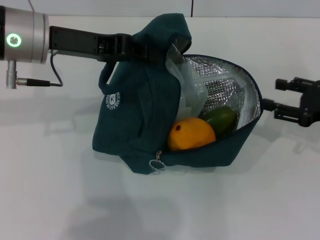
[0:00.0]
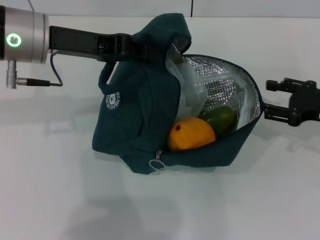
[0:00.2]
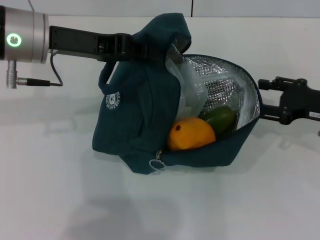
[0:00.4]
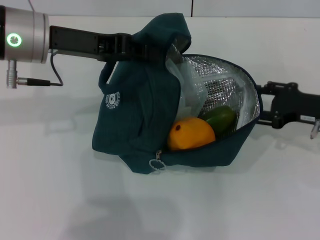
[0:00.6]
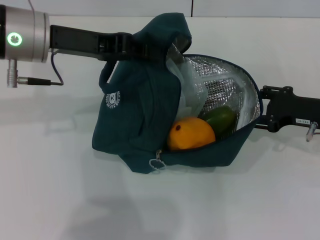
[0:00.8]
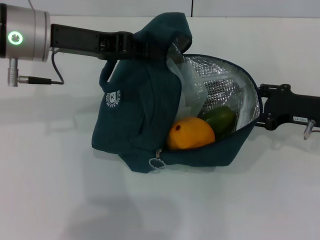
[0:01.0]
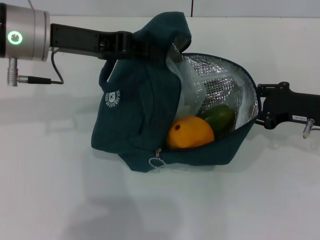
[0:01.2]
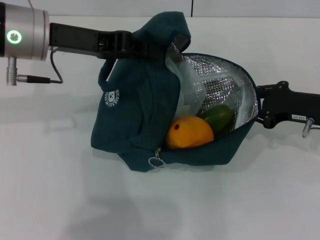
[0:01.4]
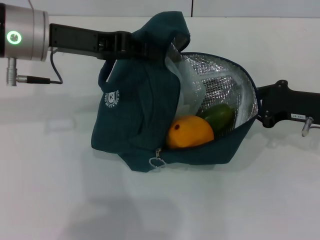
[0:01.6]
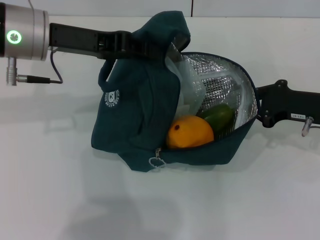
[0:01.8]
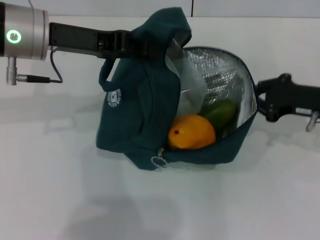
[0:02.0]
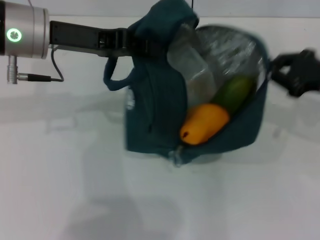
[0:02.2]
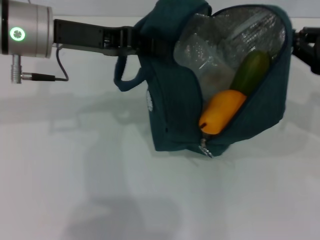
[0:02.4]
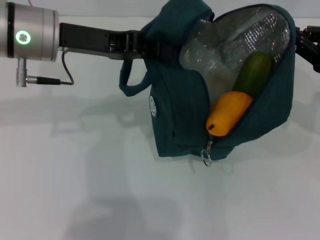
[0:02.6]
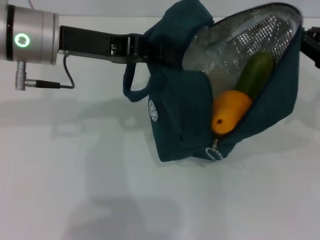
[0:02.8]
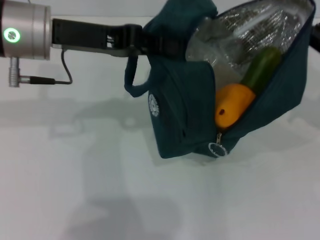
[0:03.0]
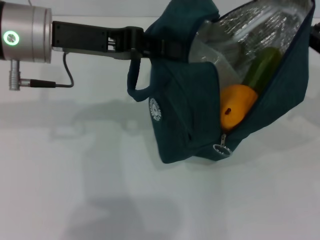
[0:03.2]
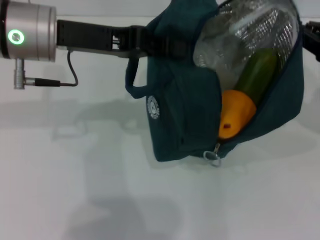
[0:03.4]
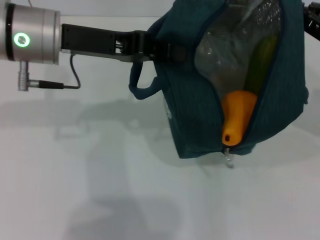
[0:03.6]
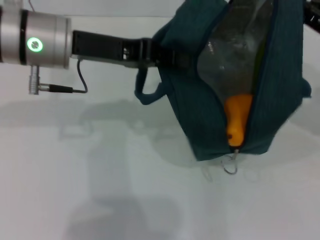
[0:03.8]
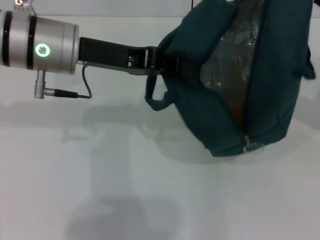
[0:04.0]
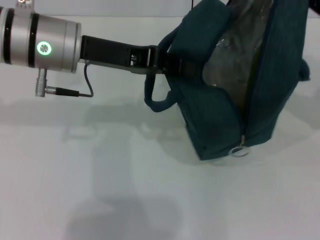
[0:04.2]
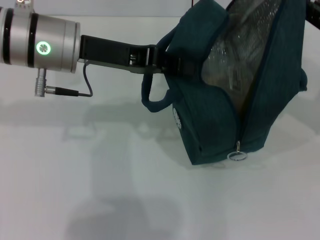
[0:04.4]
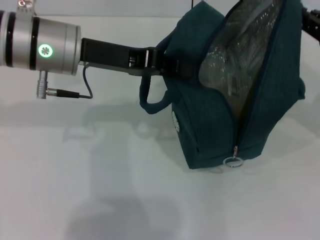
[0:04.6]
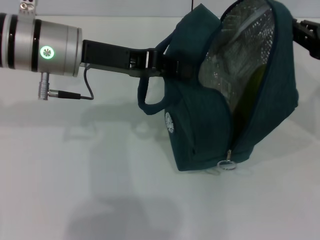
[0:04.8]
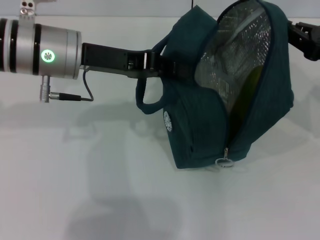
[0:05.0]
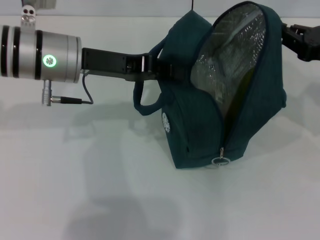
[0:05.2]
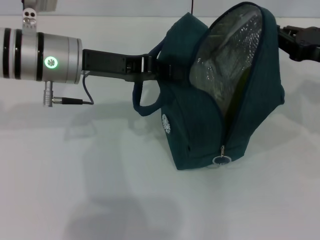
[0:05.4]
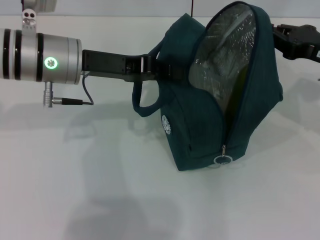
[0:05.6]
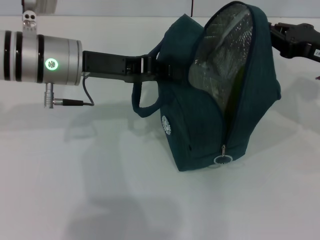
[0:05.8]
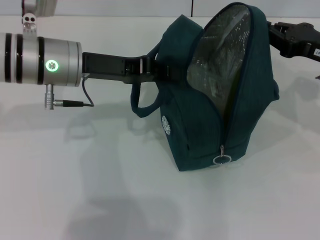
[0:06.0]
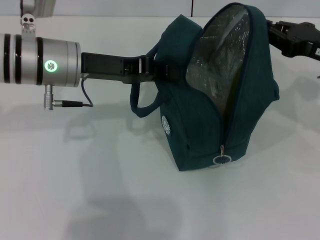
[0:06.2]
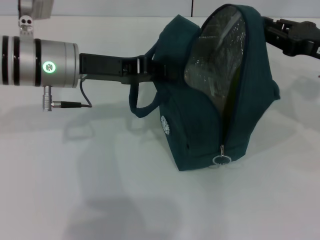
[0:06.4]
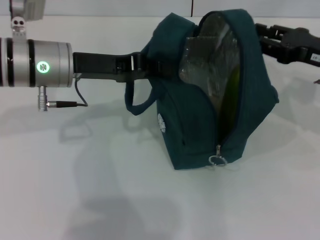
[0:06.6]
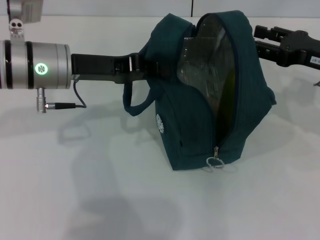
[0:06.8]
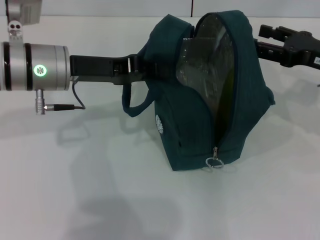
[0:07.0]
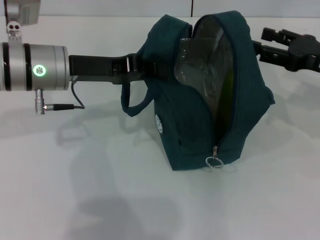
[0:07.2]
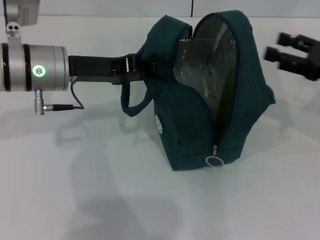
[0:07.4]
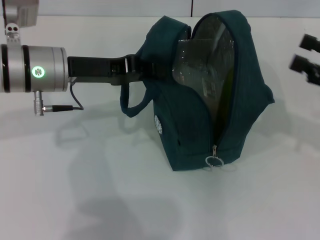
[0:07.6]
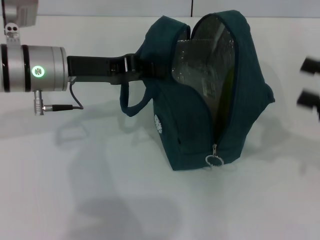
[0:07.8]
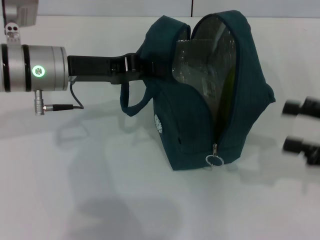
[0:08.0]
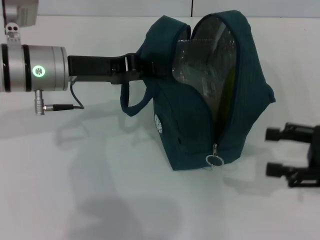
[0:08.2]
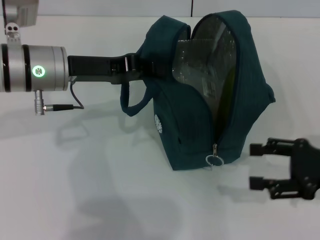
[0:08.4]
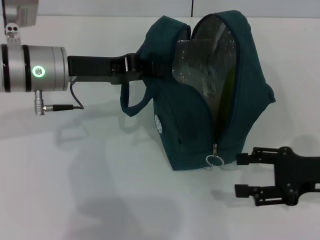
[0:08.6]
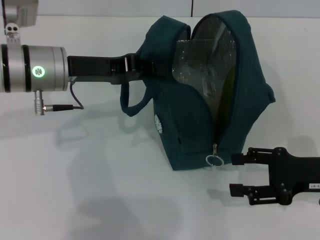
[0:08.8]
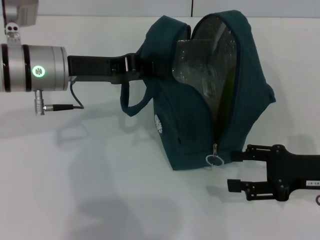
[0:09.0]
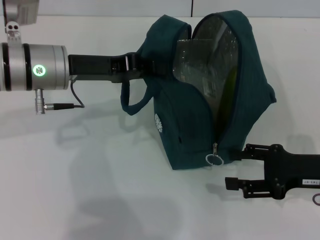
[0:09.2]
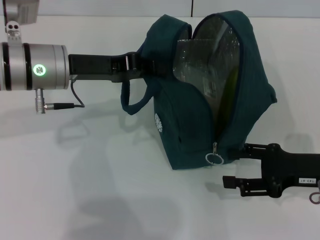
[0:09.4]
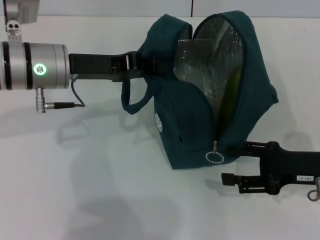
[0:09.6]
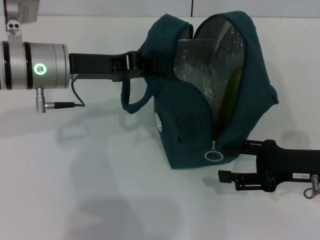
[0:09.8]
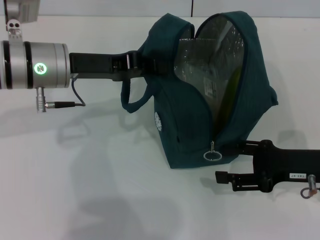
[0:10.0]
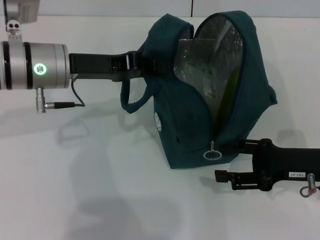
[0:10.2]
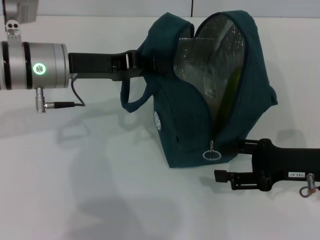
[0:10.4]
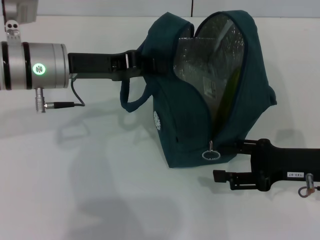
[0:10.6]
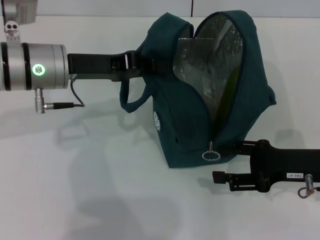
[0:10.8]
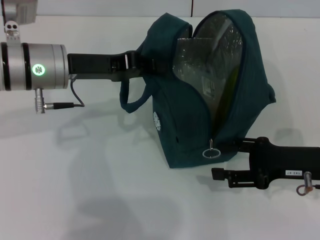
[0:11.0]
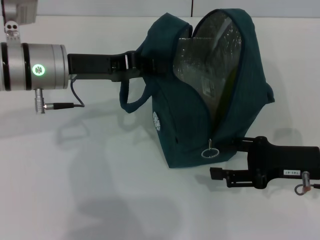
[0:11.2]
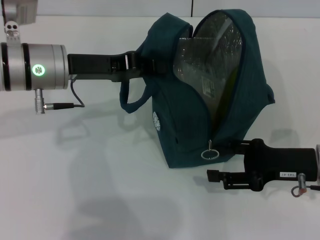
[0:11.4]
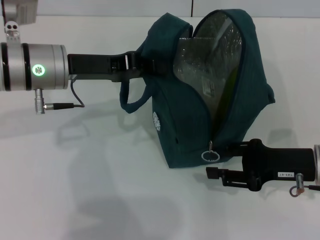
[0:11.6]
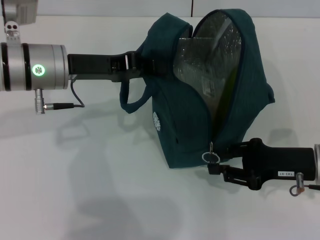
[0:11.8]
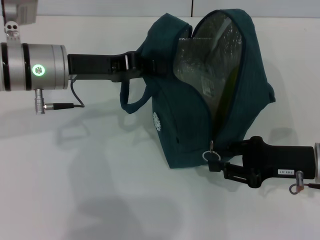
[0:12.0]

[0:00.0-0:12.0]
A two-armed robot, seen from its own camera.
Step, 0:00.0 to 0:06.8: Hold the lunch bag with your right hand.
0:00.0 to 0:01.6: The right gripper moves to the left, some 5 cm, and closes.
0:01.6 to 0:03.0: The right gripper shifts about 10 cm to the right and upward.
0:06.0 to 0:07.6: The right gripper heads backward and to the right, covering some 10 cm, and opens up.
0:07.6 to 0:09.0: The right gripper heads downward and to the left, covering about 10 cm.
0:09.0 to 0:10.4: The grippers make only small movements.
0:10.4 to 0:12.0: The right gripper closes its fingers.

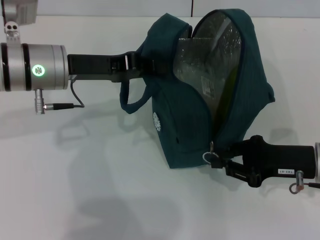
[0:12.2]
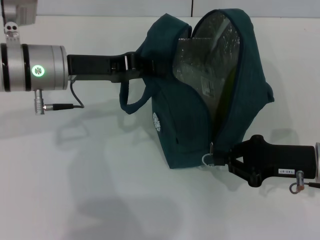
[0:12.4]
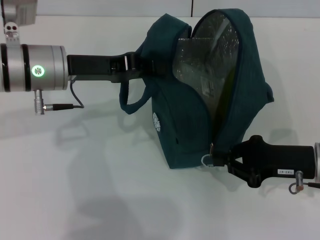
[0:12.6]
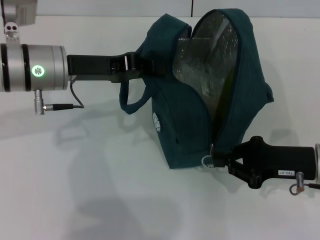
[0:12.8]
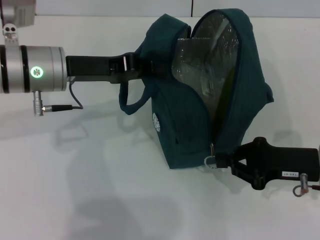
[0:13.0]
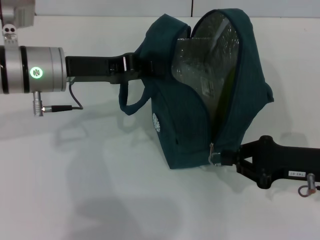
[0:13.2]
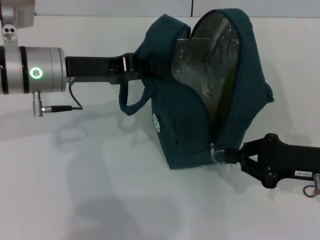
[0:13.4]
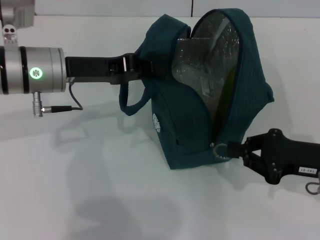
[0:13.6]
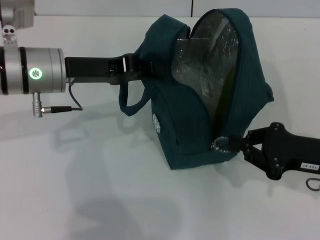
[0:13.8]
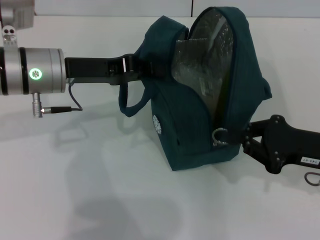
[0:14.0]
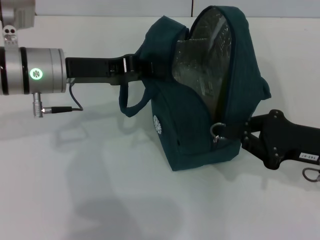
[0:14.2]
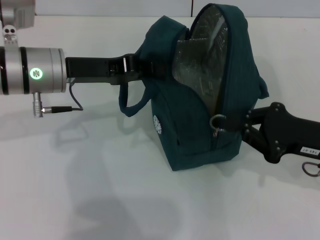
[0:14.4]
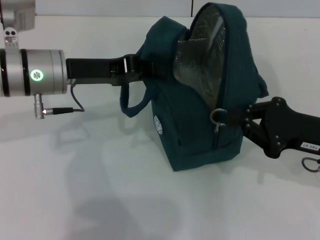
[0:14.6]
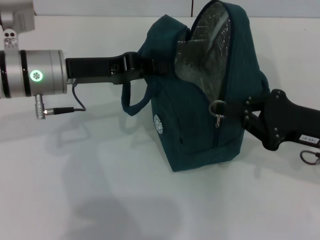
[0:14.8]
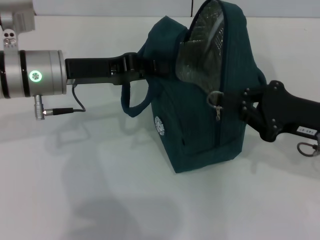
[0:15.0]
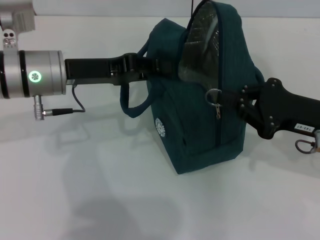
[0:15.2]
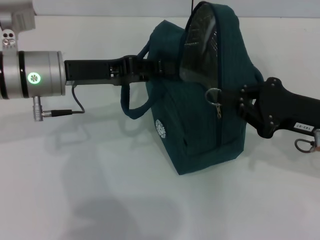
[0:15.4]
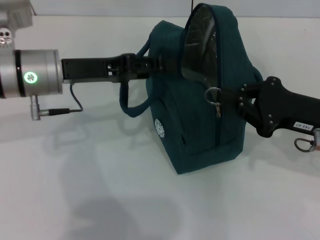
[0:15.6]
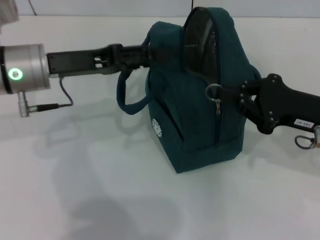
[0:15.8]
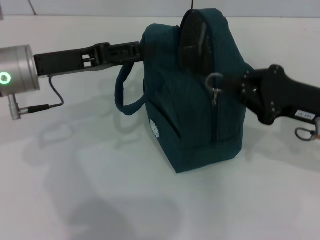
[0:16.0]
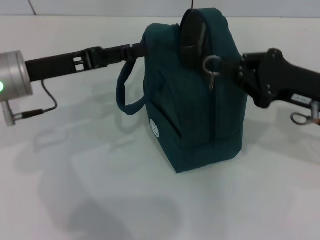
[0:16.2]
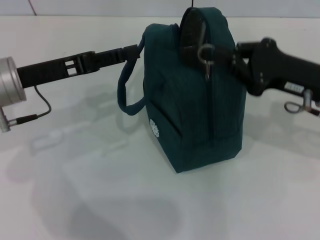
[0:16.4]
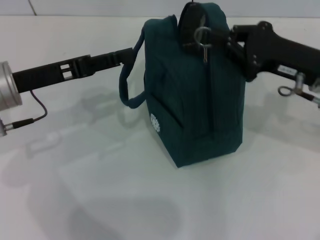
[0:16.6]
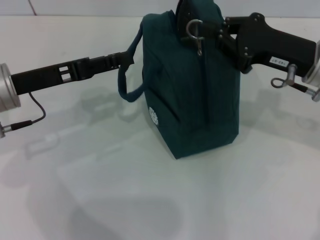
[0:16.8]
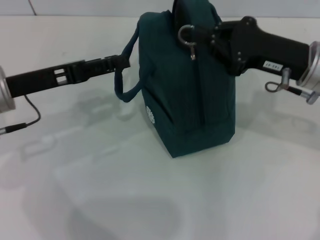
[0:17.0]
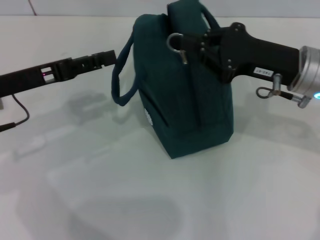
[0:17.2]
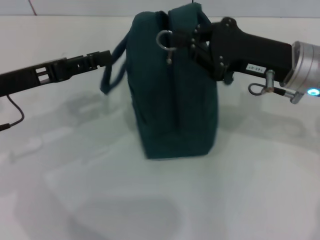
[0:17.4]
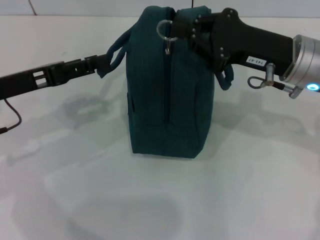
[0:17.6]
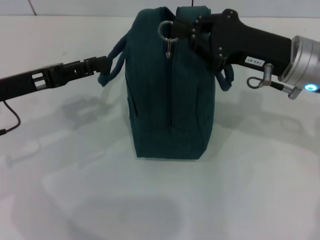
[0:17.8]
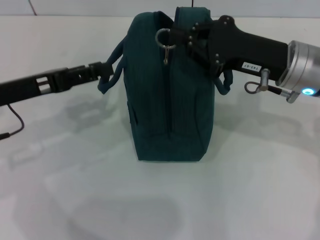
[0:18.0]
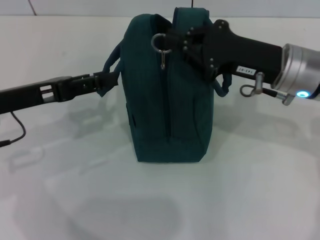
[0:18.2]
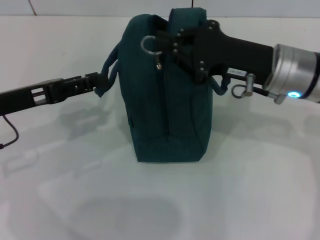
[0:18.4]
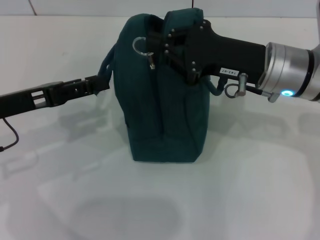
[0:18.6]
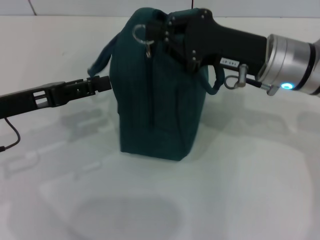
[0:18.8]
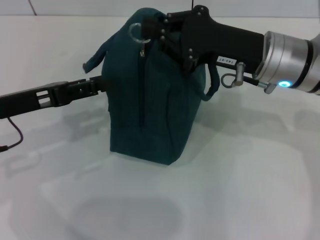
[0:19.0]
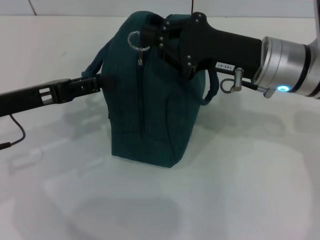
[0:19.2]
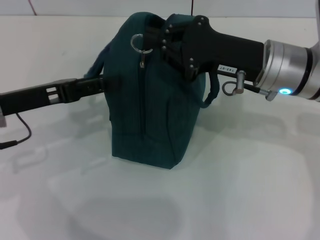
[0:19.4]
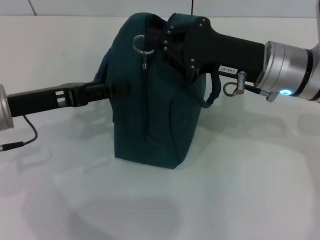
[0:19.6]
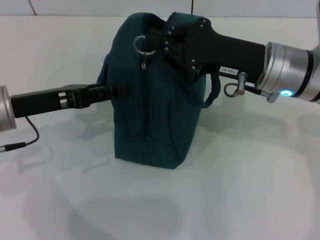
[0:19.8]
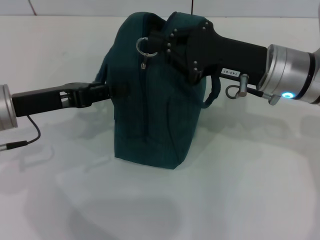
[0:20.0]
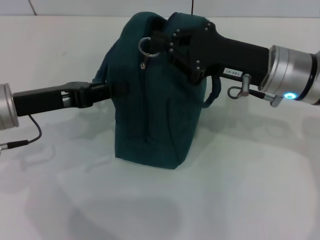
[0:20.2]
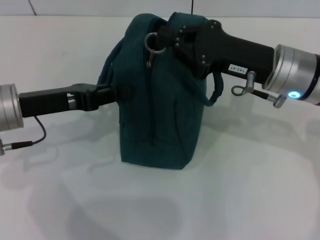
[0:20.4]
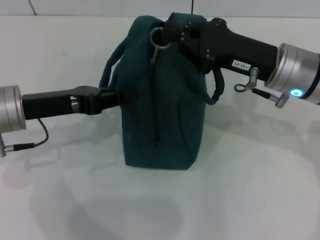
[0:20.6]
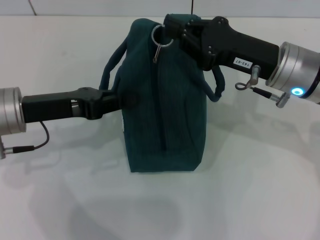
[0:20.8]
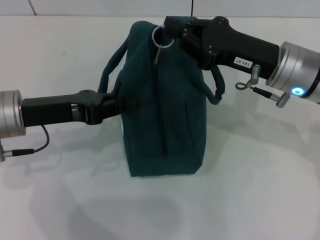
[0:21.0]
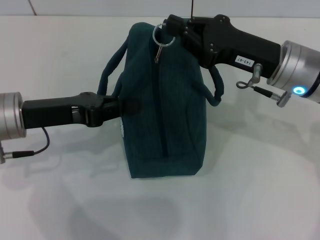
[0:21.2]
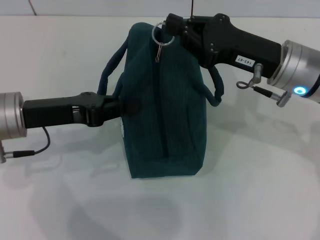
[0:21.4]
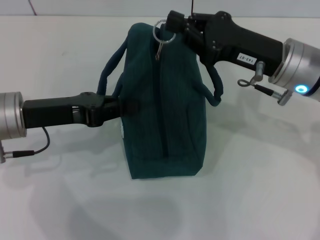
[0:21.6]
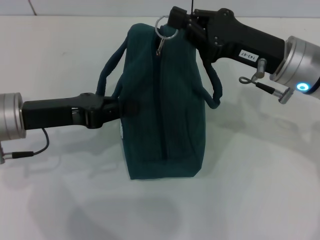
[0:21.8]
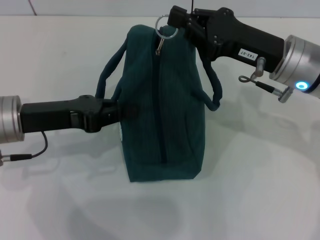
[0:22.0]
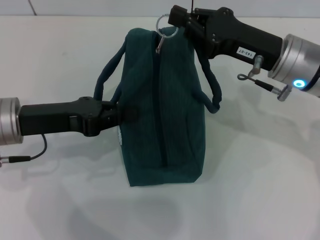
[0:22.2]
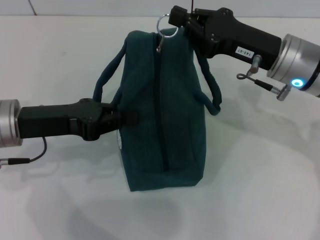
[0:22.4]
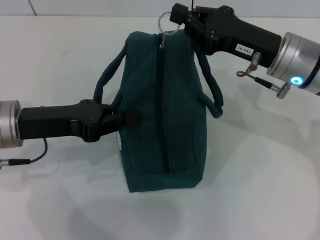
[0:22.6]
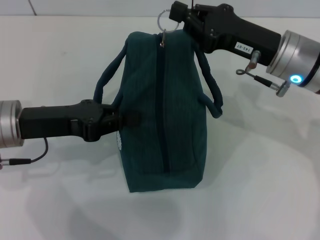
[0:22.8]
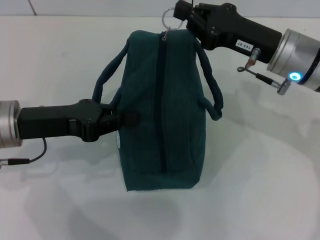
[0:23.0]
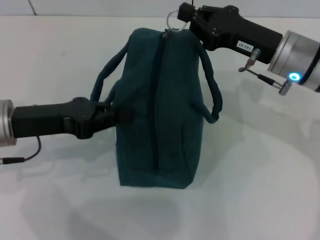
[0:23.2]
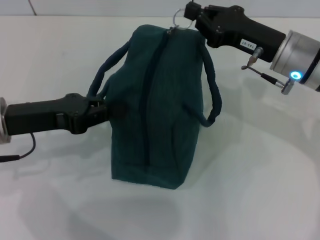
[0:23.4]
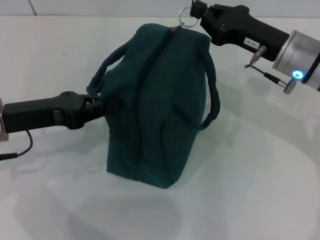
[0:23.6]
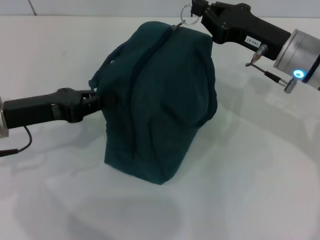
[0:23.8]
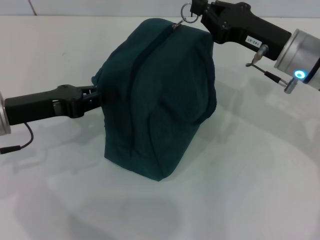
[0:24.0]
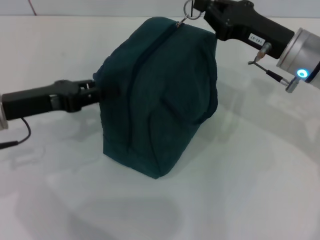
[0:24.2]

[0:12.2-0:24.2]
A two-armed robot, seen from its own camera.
Step, 0:12.2 to 0:16.0: Hold the lunch bag with your left hand.
0:12.2 to 0:13.8: The grippers stay close to where they were, moving slightly.
0:13.8 to 0:15.2: The grippers make only small movements.
0:15.2 to 0:16.6: The right gripper shifts by roughly 5 cm. The left gripper goes approximately 5 cm to the left, and opens its fingers.
0:16.6 to 0:18.2: The right gripper goes roughly 5 cm to the left.
0:18.2 to 0:19.8: The grippers stay close to where they were, moving slightly.
0:19.8 to 0:21.2: The left gripper closes up.
0:21.2 to 0:22.6: The grippers make only small movements.
